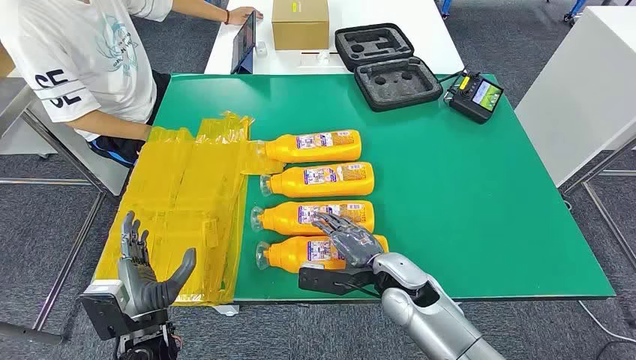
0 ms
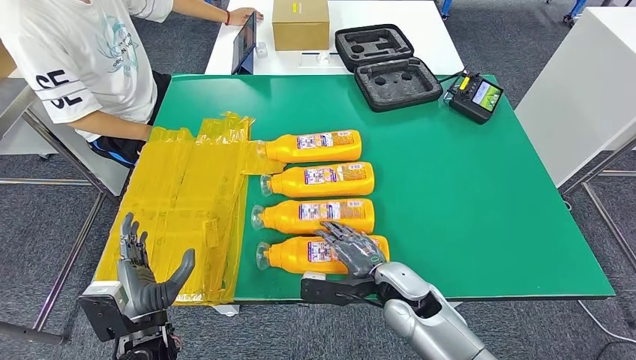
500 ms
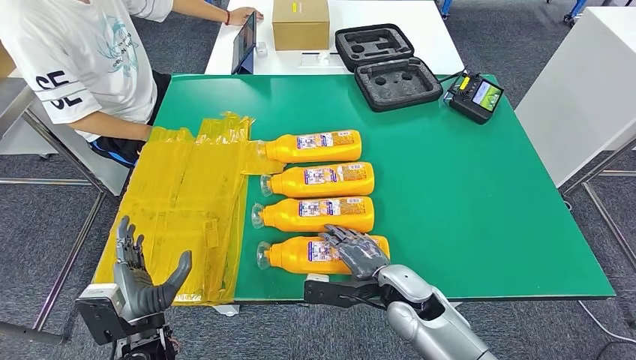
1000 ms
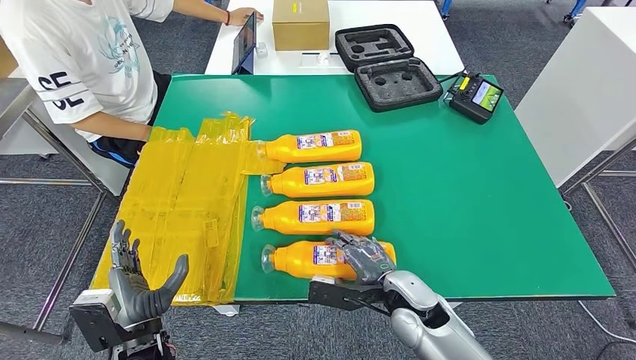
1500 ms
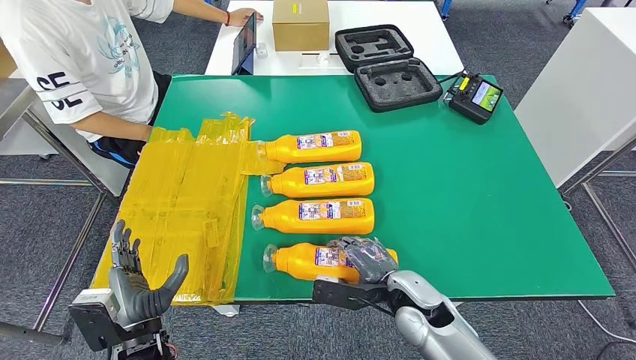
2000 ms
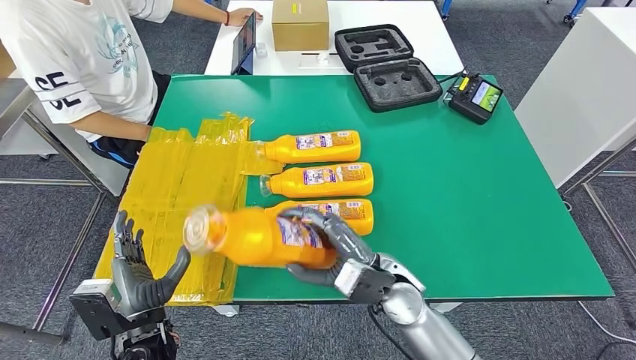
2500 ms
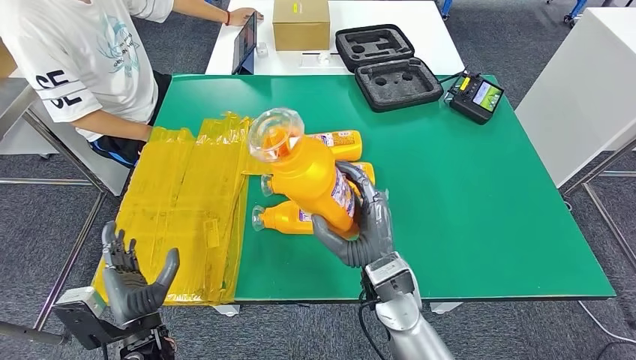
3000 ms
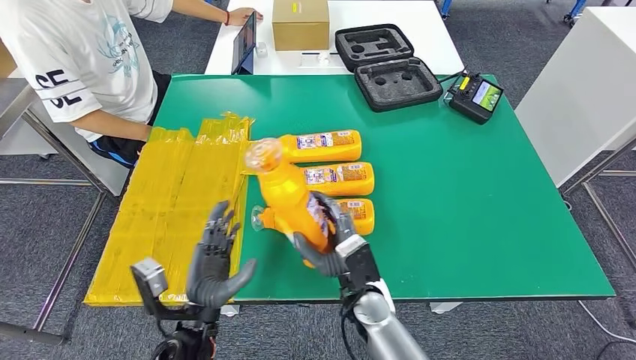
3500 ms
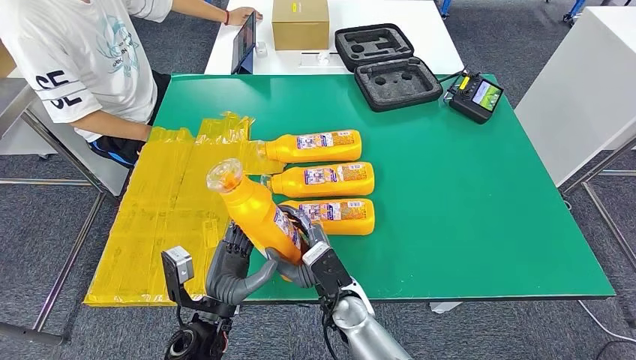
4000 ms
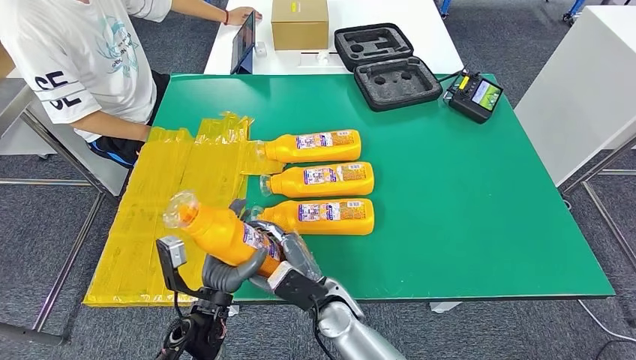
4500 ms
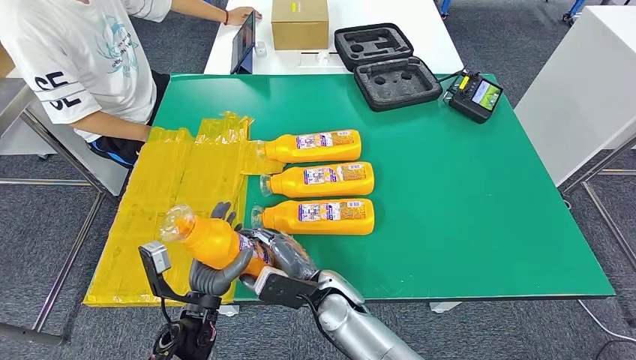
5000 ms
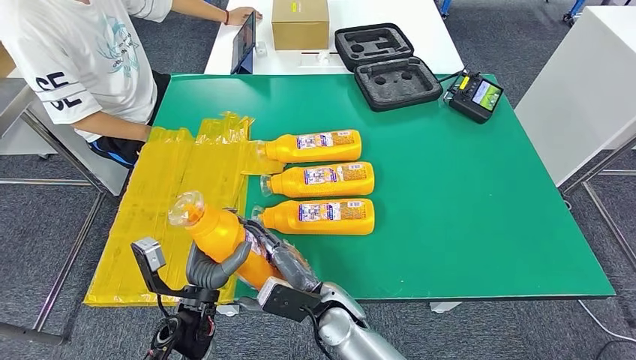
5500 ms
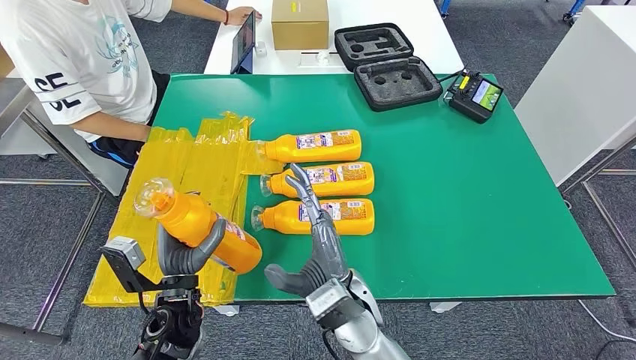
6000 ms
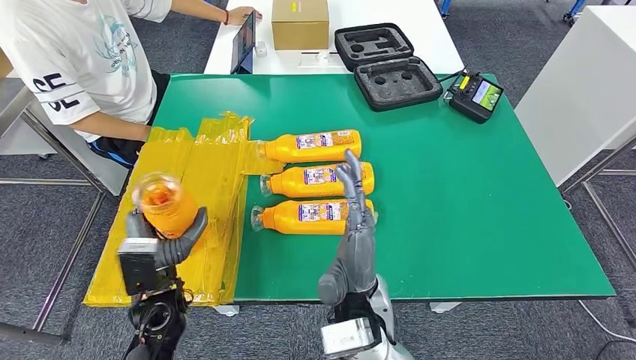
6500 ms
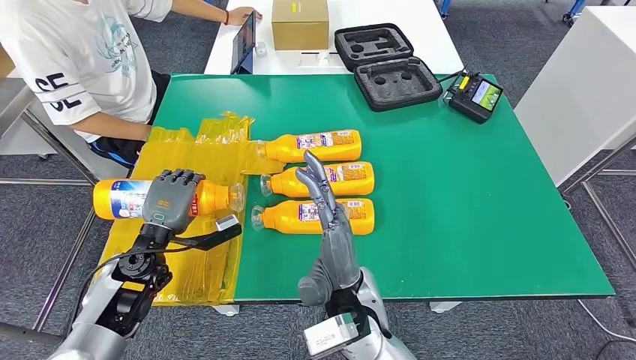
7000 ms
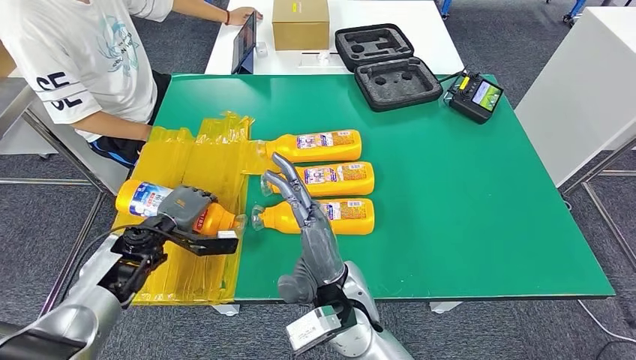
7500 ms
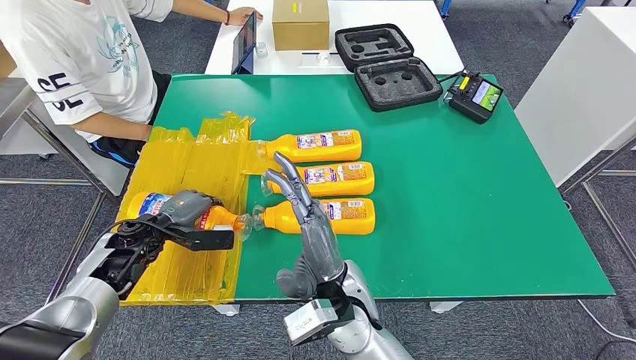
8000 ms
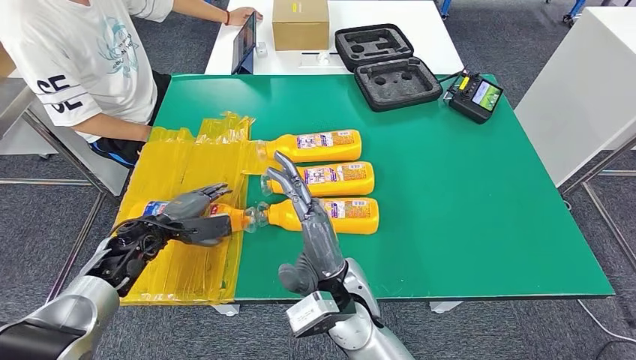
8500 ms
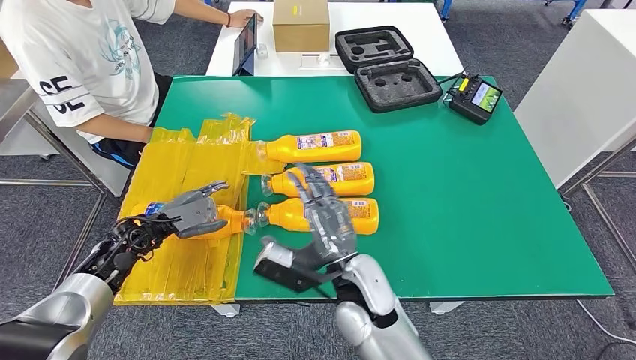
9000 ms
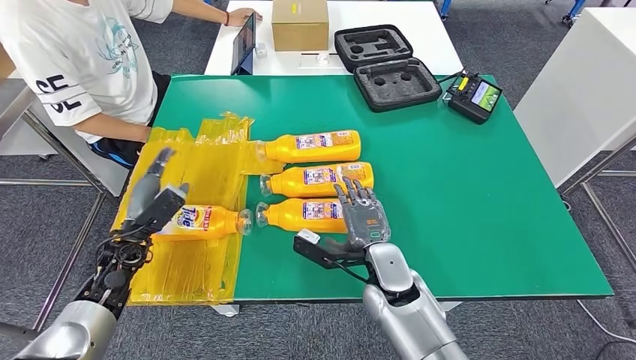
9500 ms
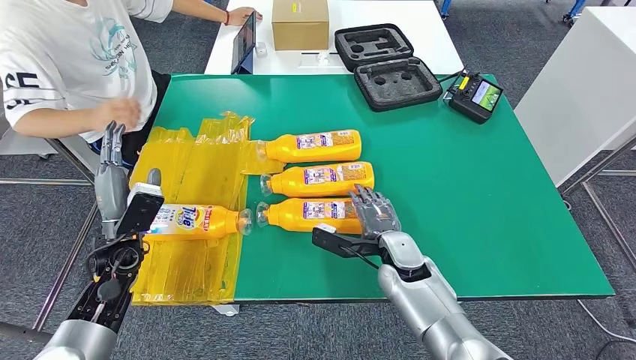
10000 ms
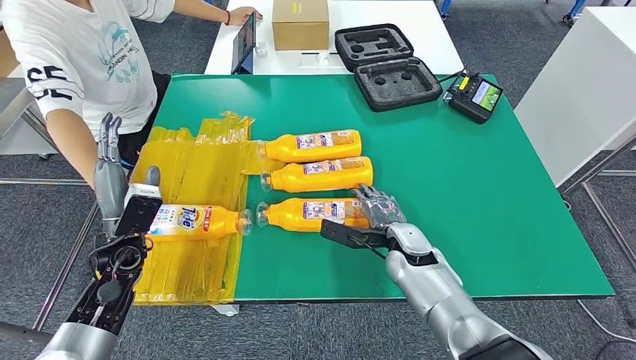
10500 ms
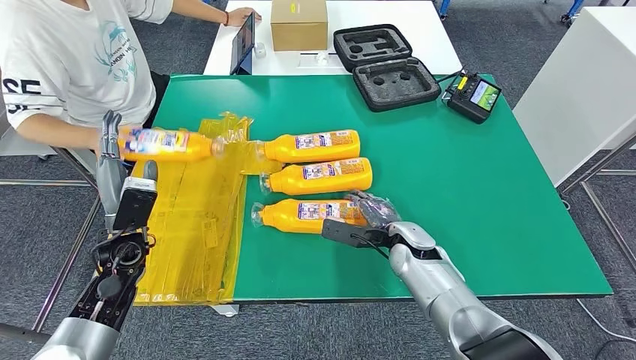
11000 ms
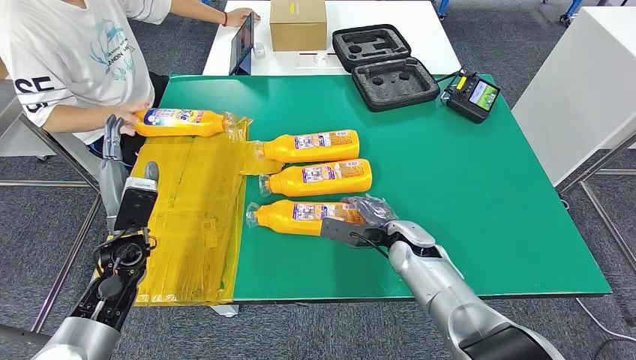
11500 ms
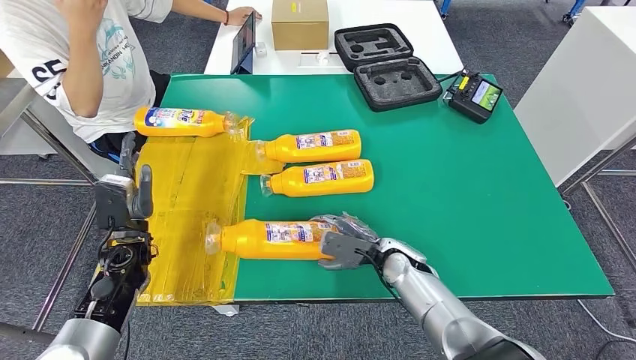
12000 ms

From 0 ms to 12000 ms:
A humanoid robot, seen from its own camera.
Step, from 0 ms to 3000 ms: Take the fast-moving consumer goods bottle from the table.
Step, from 4500 ms to 9500 ms: Flip the fast-moving consumer goods bottle to the front side.
From 2000 ms to 4000 ms: The left hand goes roughly 10 cm to the right. Meanwhile the right hand goes approximately 15 cm to the left.
From 4000 ms to 6000 ms: The left hand ends up some 5 cm from where it was, while the right hand goes roughly 10 cm upward.
From 6000 ms to 8000 ms: The left hand moves forward and to the left, roughly 20 cm.

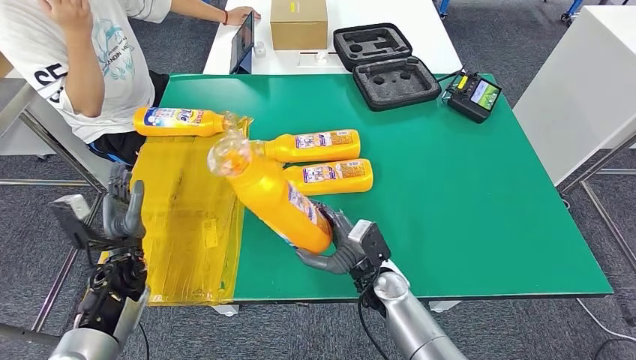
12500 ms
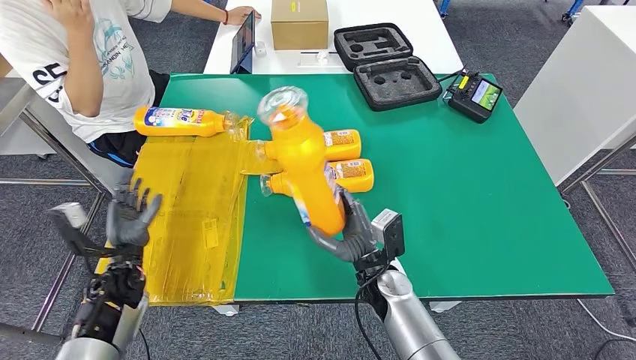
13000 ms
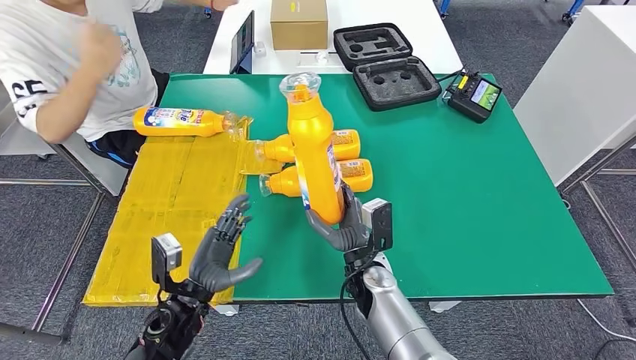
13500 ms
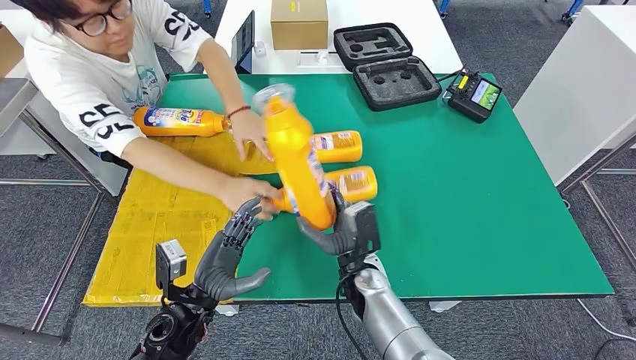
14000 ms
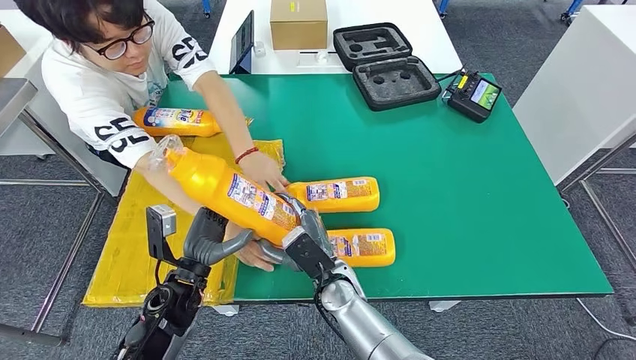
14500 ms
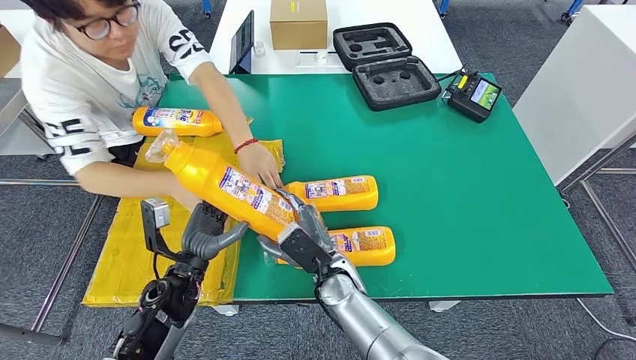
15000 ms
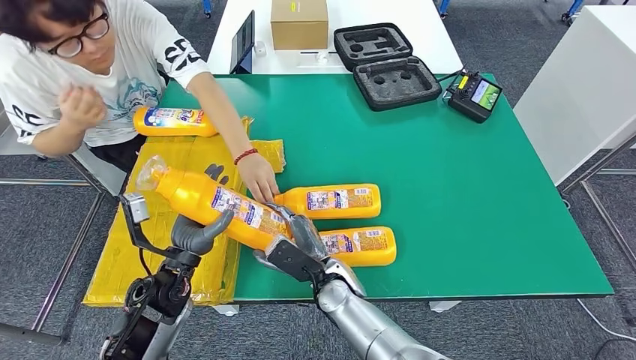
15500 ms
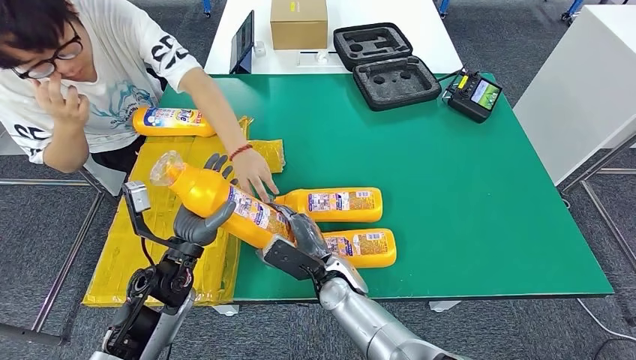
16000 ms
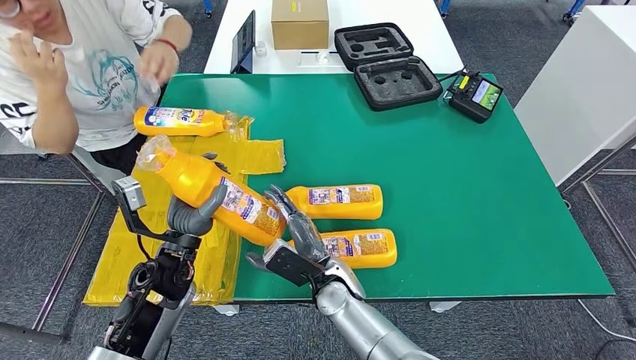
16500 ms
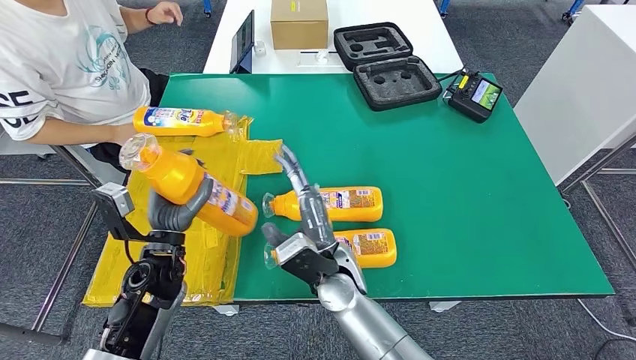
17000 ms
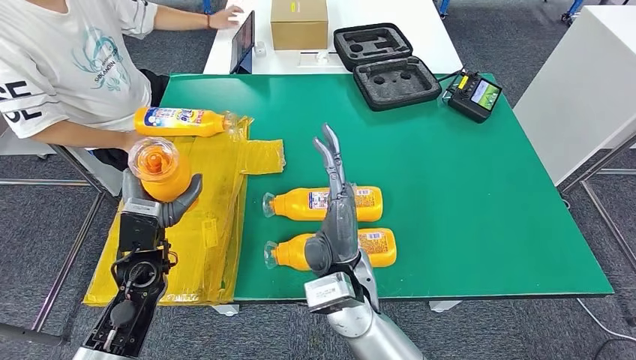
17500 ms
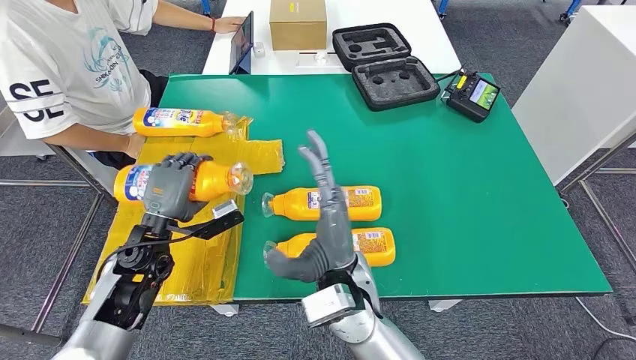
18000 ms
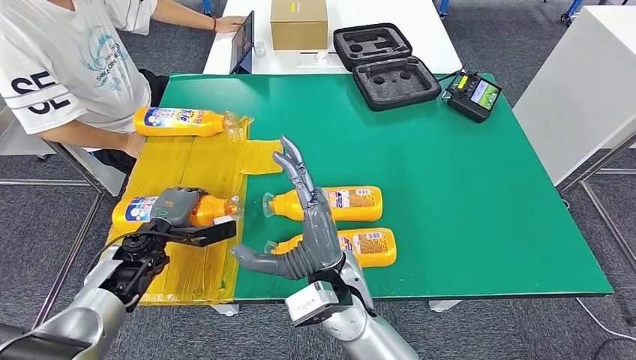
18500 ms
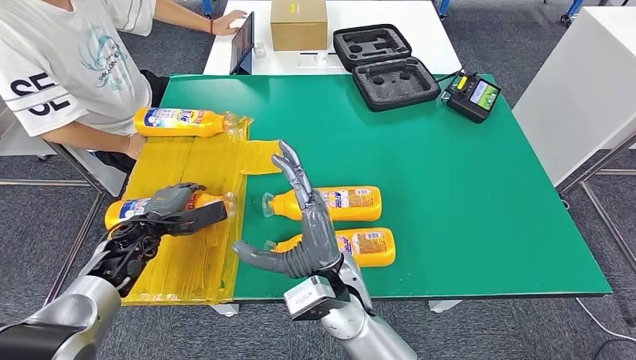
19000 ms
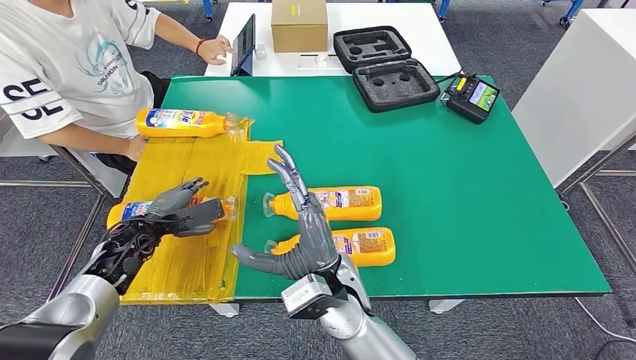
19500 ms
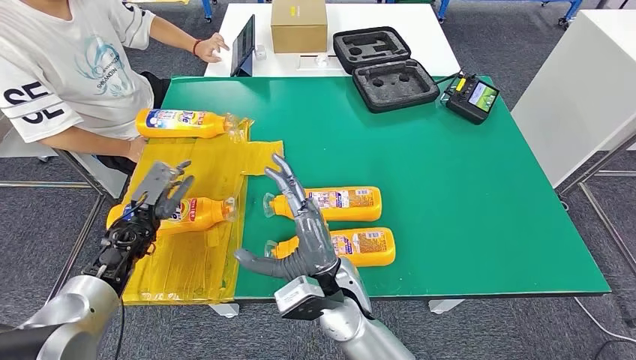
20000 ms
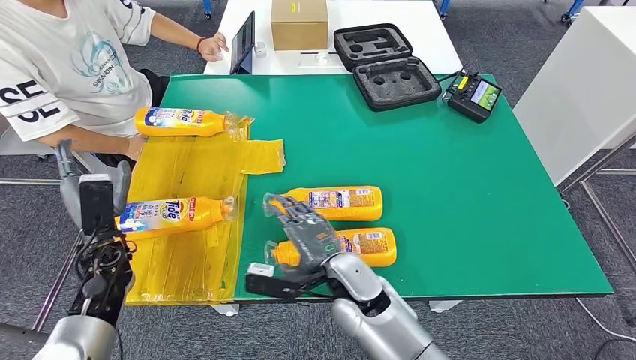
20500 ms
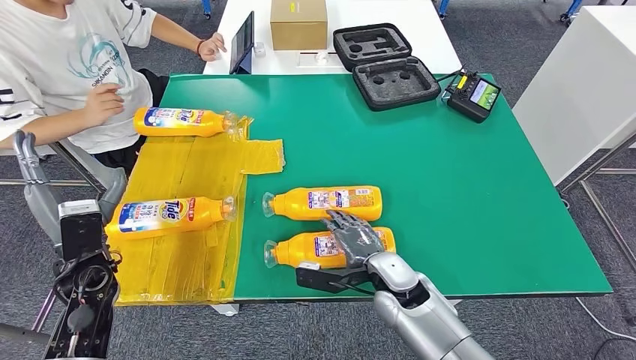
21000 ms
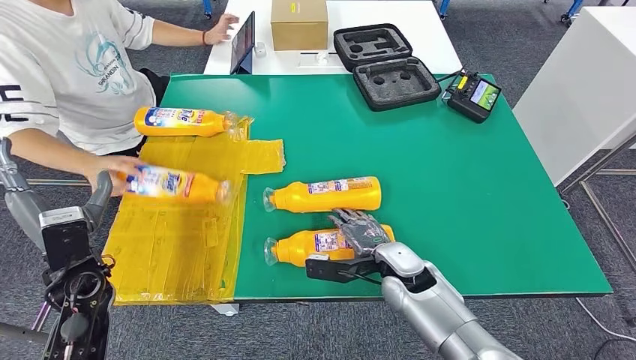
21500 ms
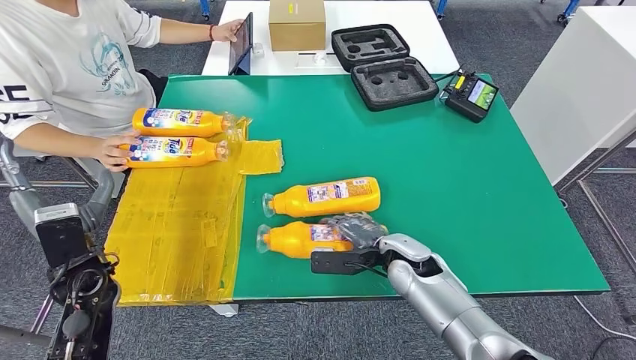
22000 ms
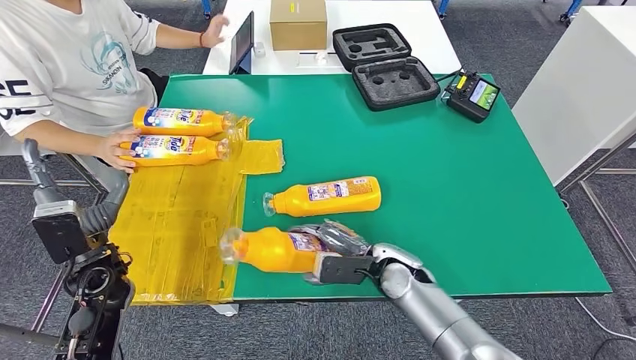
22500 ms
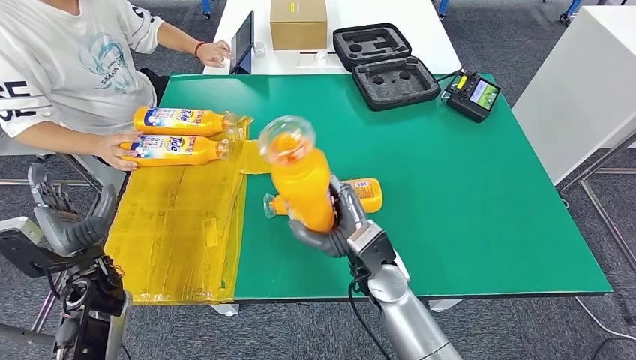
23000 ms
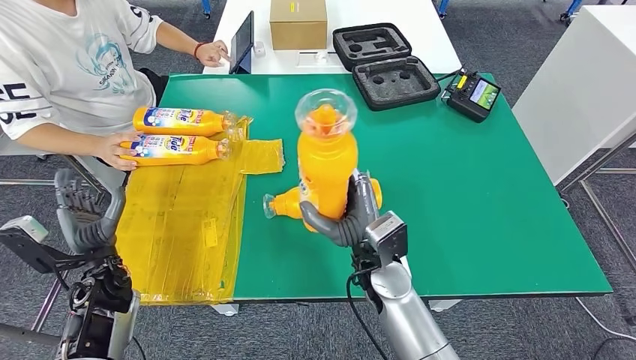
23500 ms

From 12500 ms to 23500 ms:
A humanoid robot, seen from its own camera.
Step, from 12500 ms to 14000 ms: Pick up the fast-moving consumer goods bottle from the table.
Step, from 15500 ms to 20000 ms: Flip the fast-moving consumer goods bottle to the front side.
Step, from 21500 ms to 23000 ms: Pick up the fast-moving consumer goods bottle from the table.
